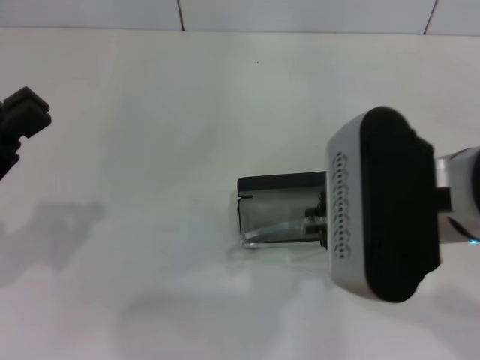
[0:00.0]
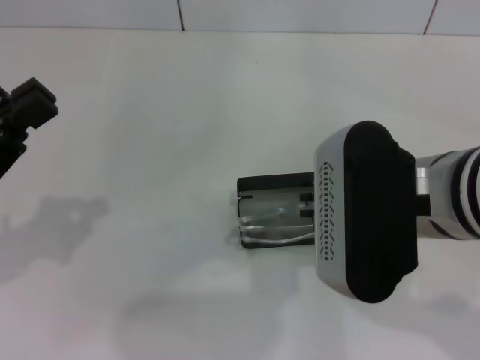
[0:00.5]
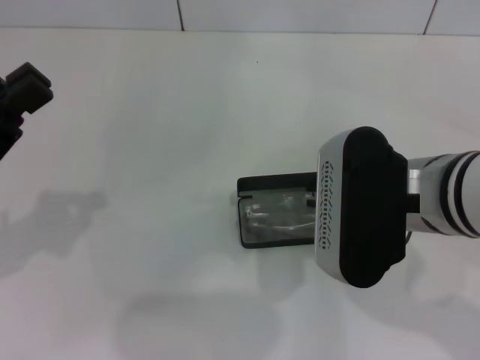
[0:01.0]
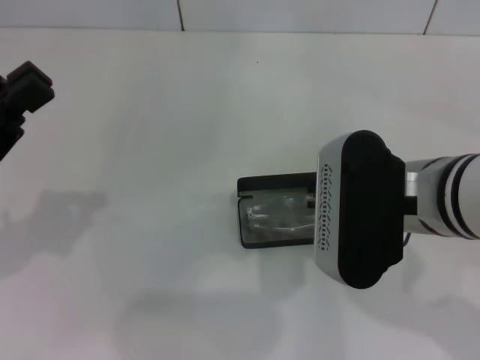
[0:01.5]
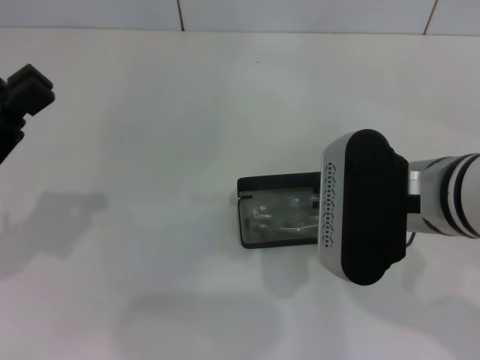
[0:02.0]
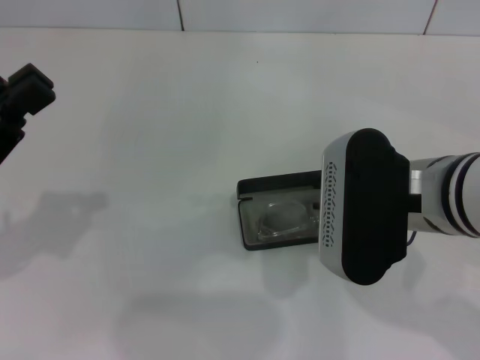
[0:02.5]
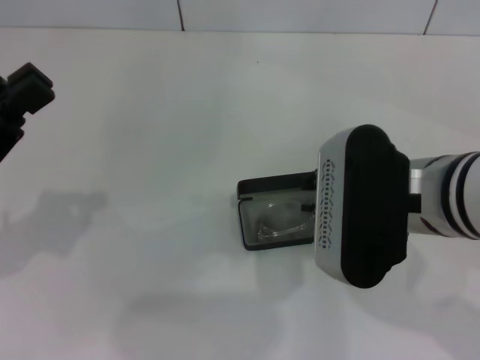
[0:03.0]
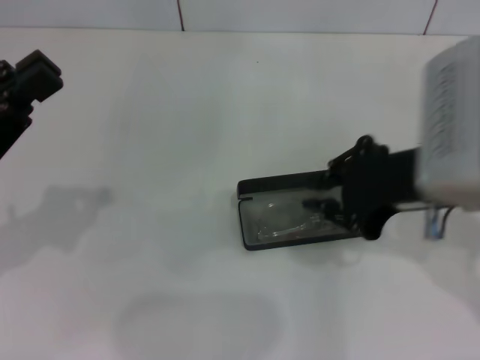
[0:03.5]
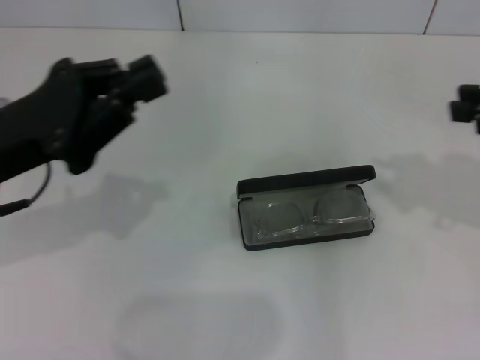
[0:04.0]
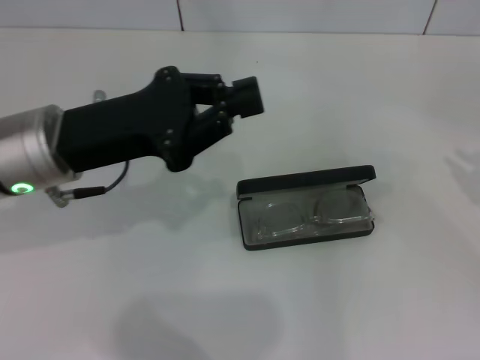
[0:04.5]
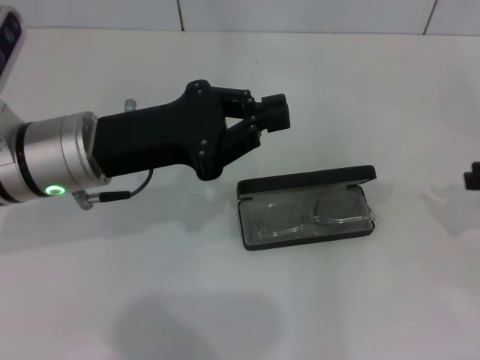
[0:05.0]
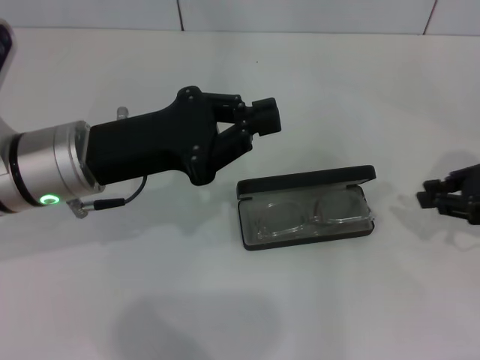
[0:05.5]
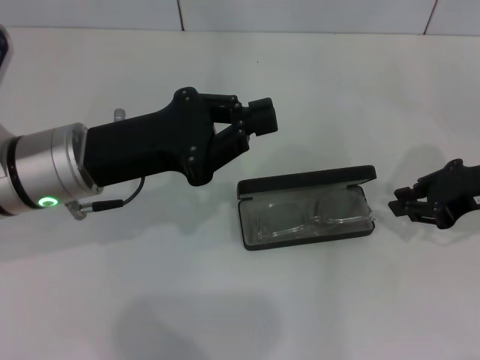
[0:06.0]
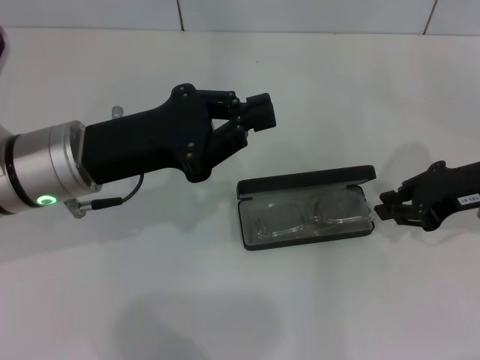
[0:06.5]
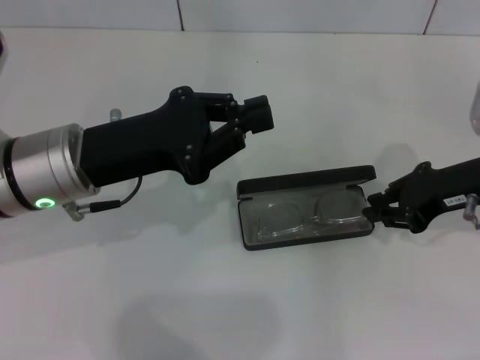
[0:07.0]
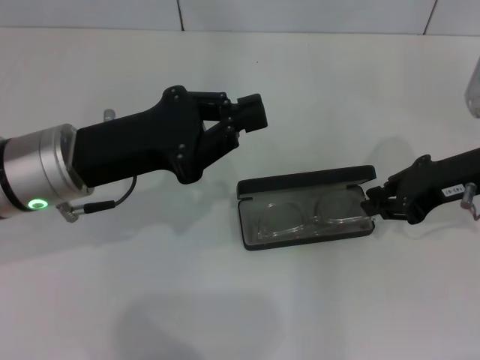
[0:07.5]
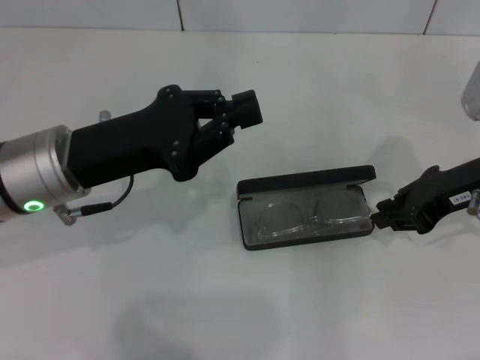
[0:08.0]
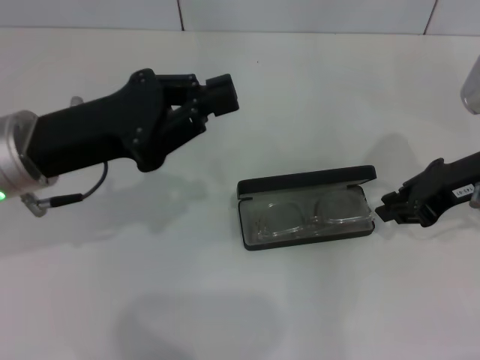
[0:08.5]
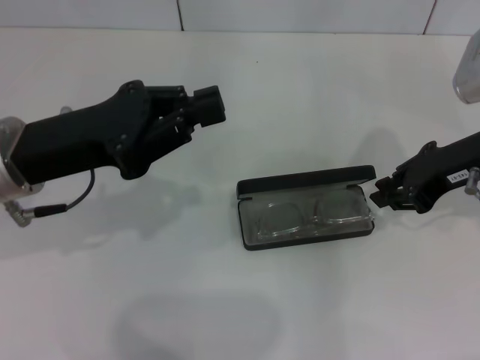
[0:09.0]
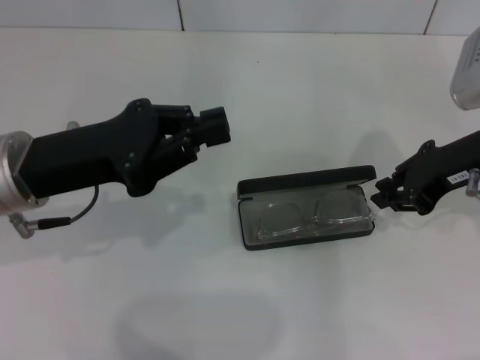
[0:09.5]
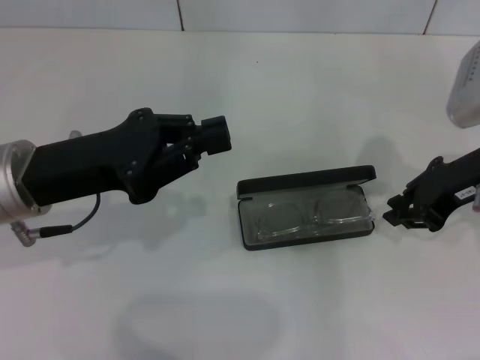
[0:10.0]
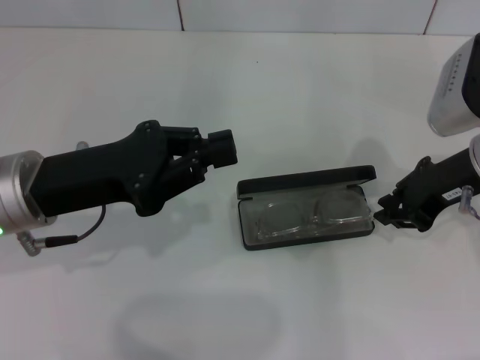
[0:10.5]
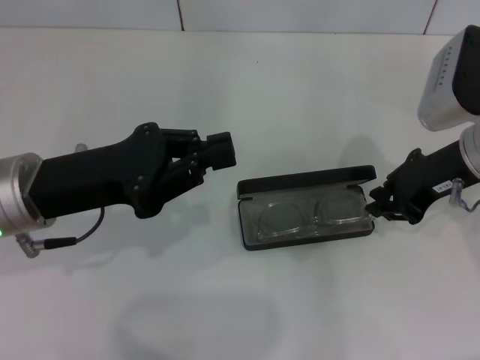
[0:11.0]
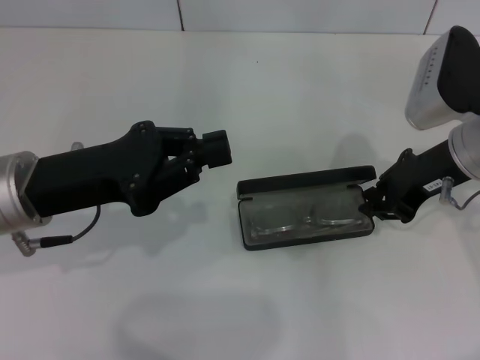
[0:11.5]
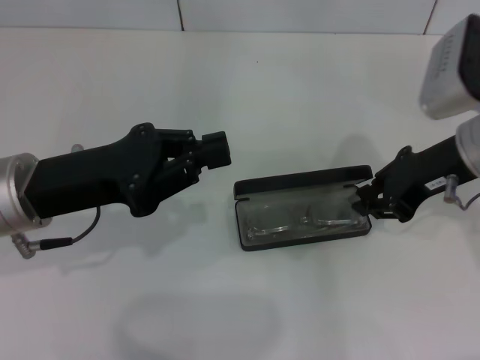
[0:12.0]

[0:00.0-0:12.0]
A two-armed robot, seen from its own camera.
Step, 0:00.0 to 0:02.5: Put the glasses into the case with your right hand.
0:00.0 to 0:02.0: The right gripper moves approximately 5 cm.
0:02.0 to 0:04.0: The left gripper shifts approximately 5 cm to the right, while the right gripper goes approximately 20 cm to the right.
0:04.0 to 0:06.0: The left gripper moves to the right, approximately 5 cm. Meanwhile the right gripper heads downward and forward, covering some 10 cm, and goes to the right and returns, about 5 cm each way.
0:06.0 to 0:10.0: There are only small adjustments of the grippers.
0:10.0 to 0:12.0: The grippers stay close to where they were, moving slightly.

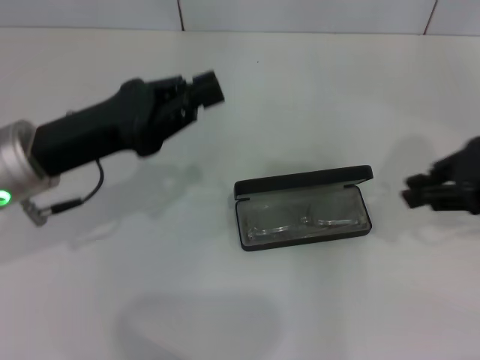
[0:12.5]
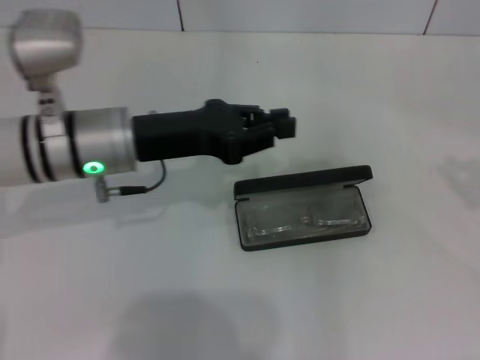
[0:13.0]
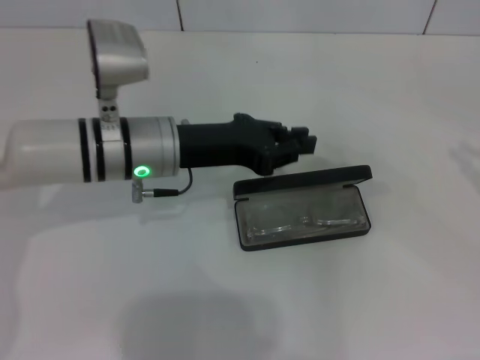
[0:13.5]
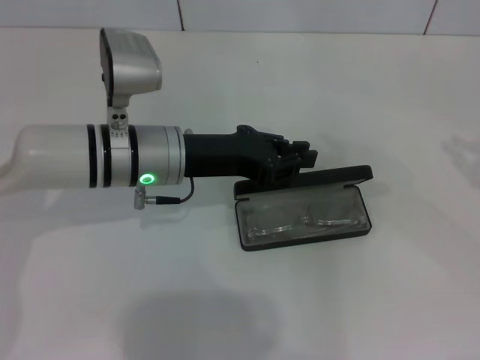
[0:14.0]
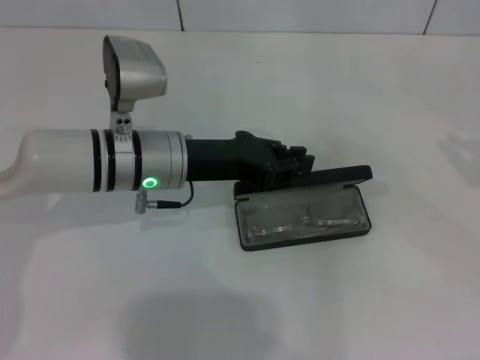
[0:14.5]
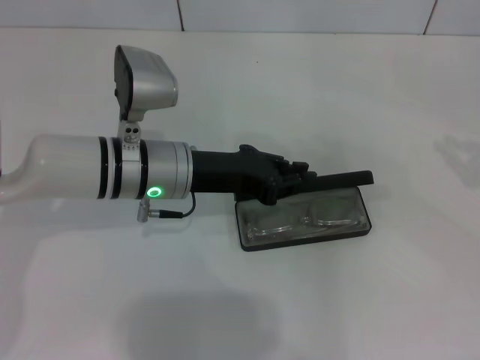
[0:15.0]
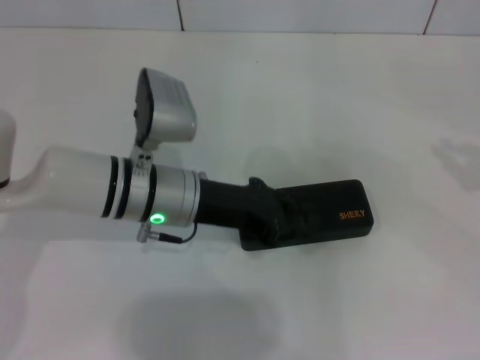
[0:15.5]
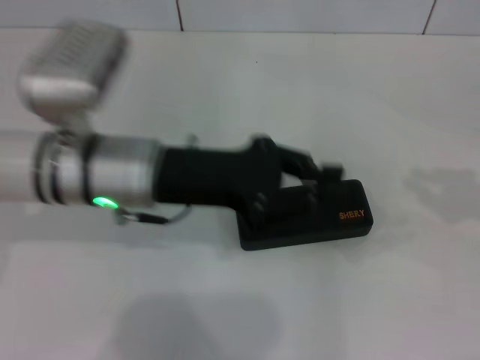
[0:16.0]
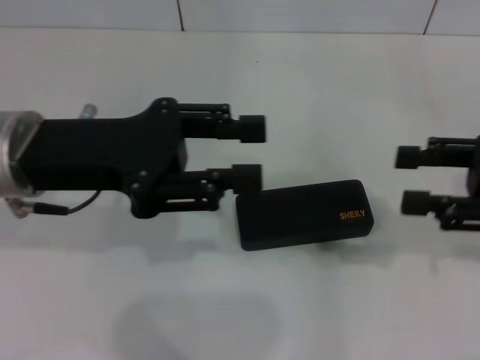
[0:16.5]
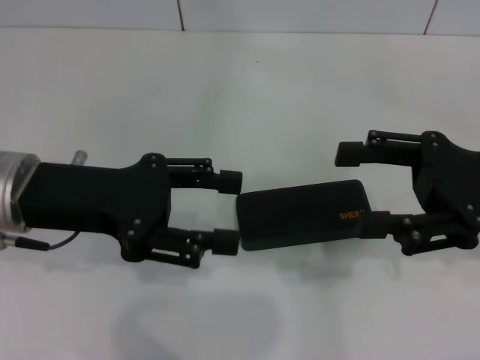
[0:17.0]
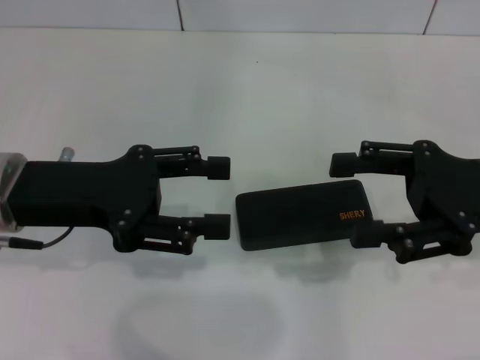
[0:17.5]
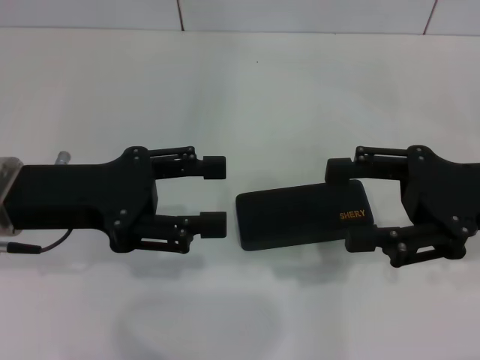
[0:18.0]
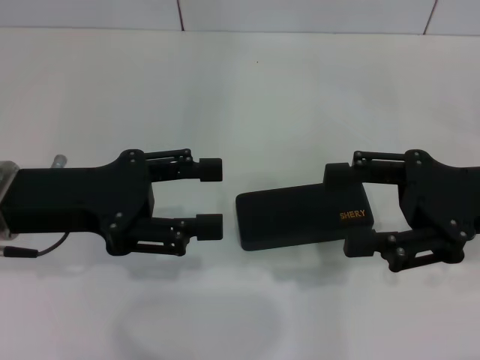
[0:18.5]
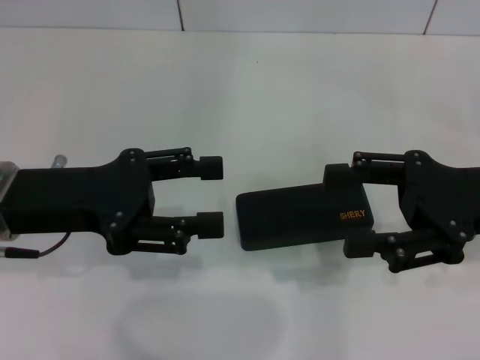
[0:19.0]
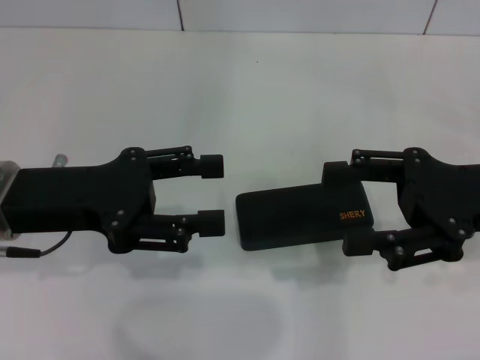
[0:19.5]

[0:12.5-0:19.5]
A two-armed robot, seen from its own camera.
Step, 0:12.5 to 0:15.5: Close the glasses case with your left hand.
0:12.5 to 0:14.5: The left gripper moves to the right and forward, about 10 cm. Meanwhile the right gripper is displaced to the right by about 15 cm.
0:14.5 to 0:16.0: The left gripper shifts by some 5 cm.
0:16.0 to 0:17.5: Both grippers travel together to the left, about 10 cm. The left gripper opens up. Meanwhile the right gripper opens.
0:17.5 to 0:19.5: Both grippers stay put.

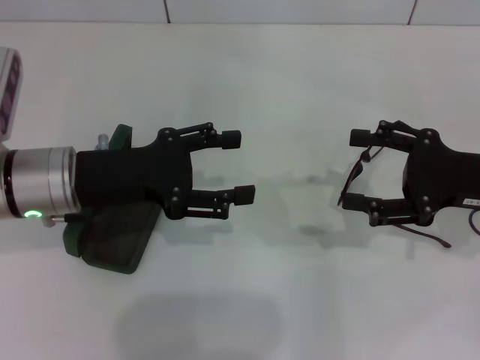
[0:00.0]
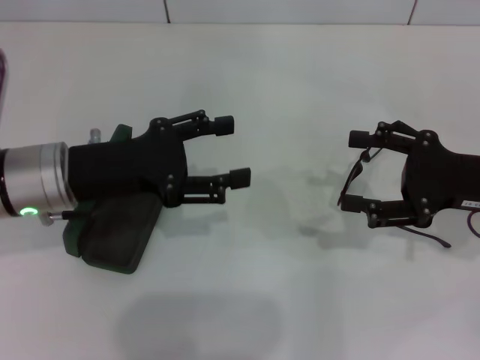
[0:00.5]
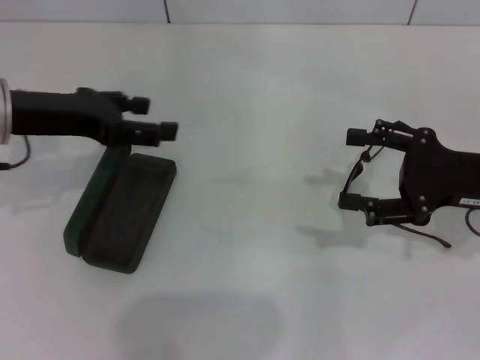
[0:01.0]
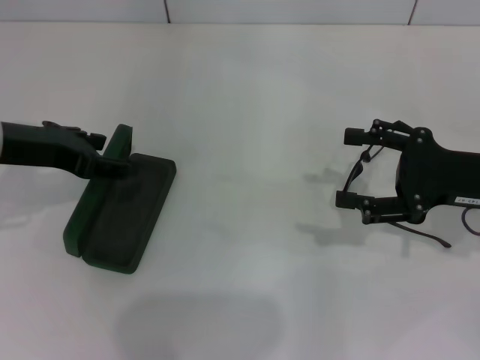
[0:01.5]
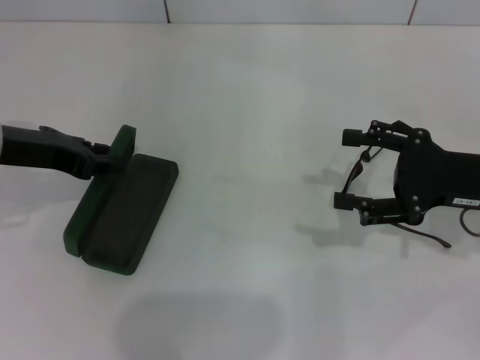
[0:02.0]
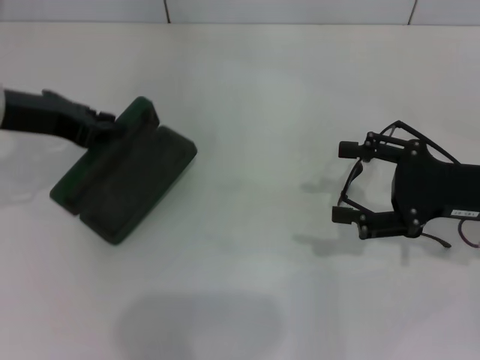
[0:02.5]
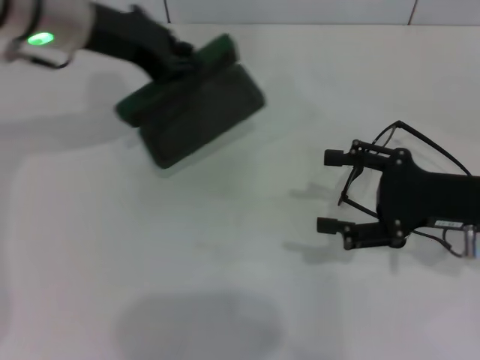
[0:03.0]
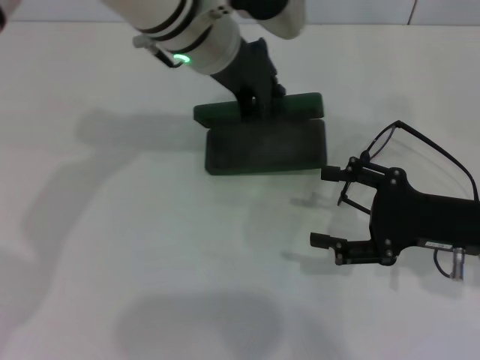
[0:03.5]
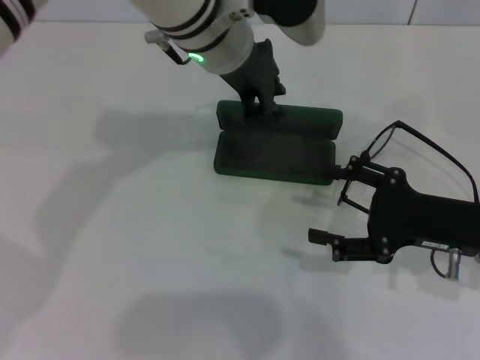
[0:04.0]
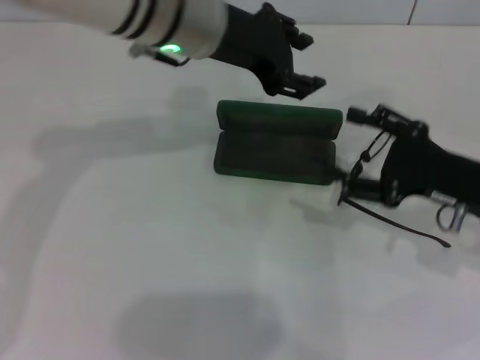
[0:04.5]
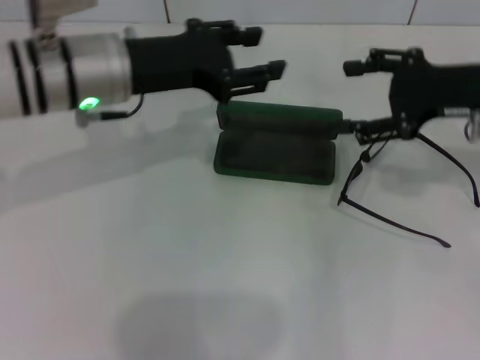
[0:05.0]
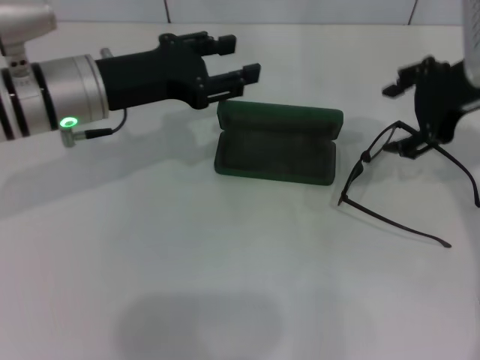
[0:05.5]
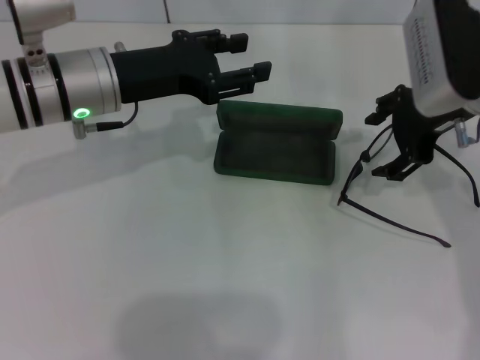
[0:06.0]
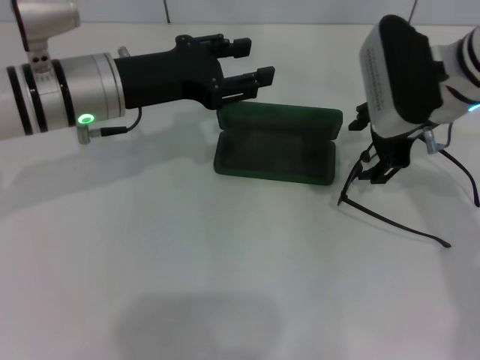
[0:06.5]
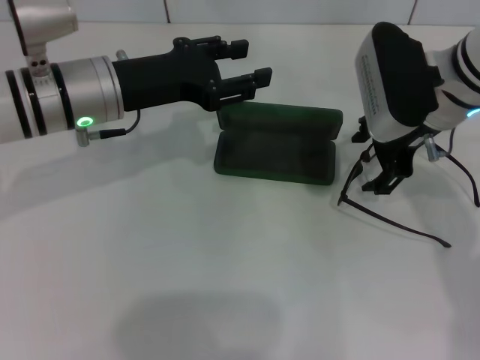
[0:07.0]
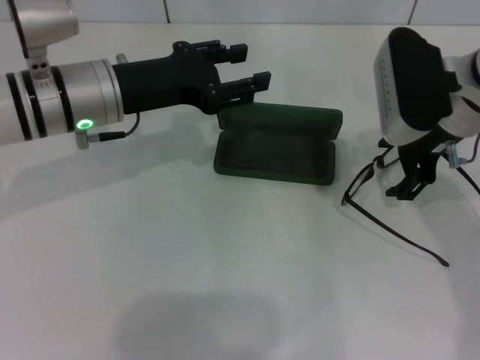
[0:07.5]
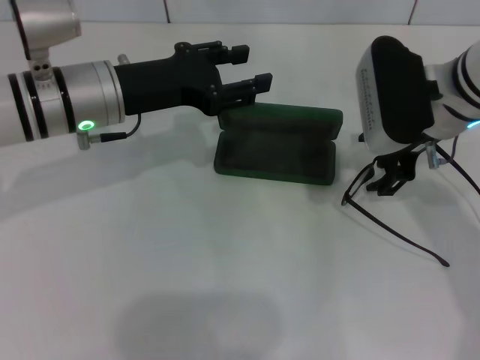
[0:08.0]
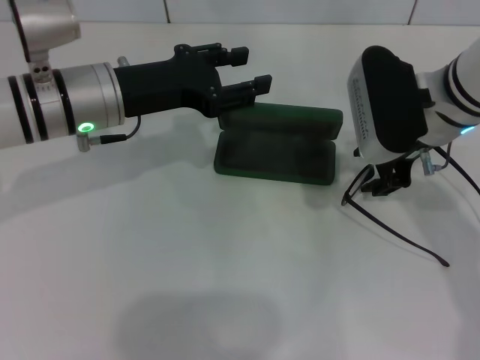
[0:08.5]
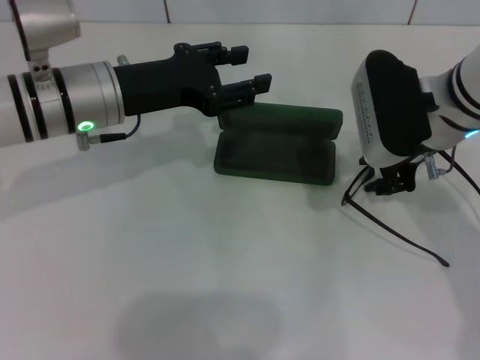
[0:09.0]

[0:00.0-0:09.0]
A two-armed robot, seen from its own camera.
Step, 0:00.0 to 0:02.0: Grab the glasses case with your left hand.
Step, 0:02.5 to 0:03.5: Place the glasses case in the center of the table with your left hand.
0:00.0 to 0:02.0: The left gripper travels to the left by about 5 cm, and closes up.
0:02.0 to 0:04.5: The left gripper travels to the right and forward by some 20 cm, and closes, then reopens.
0:04.5 to 0:07.0: The left gripper moves to the left and downward, roughly 10 cm. Meanwhile the right gripper shifts about 15 cm forward, to the left and upward.
0:07.0 to 0:09.0: The right gripper closes.
